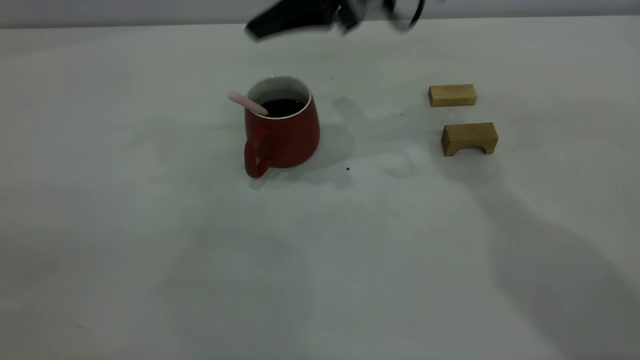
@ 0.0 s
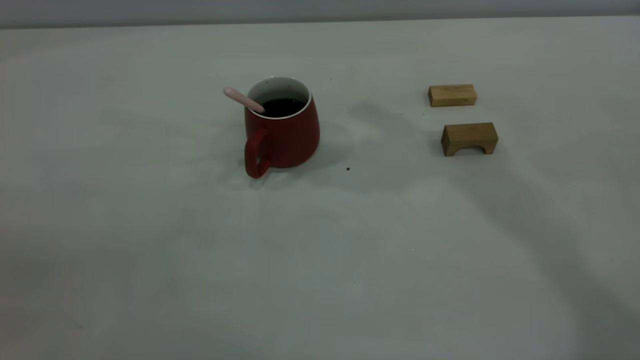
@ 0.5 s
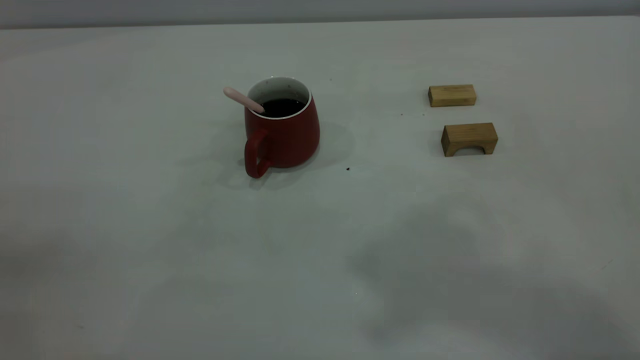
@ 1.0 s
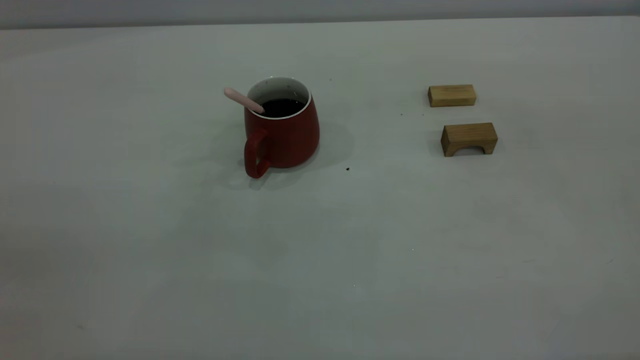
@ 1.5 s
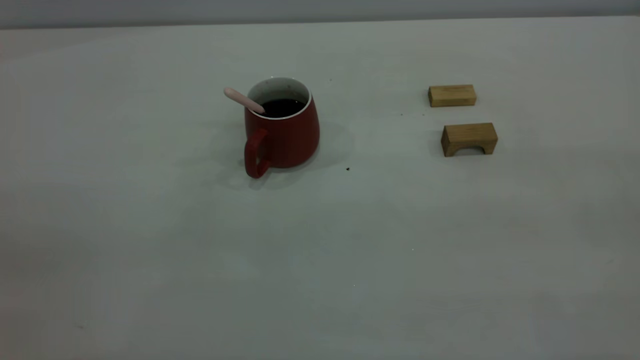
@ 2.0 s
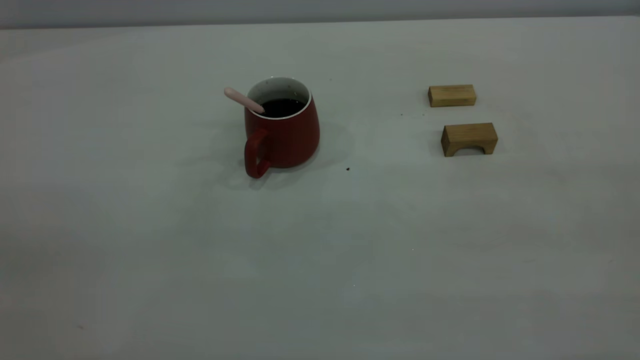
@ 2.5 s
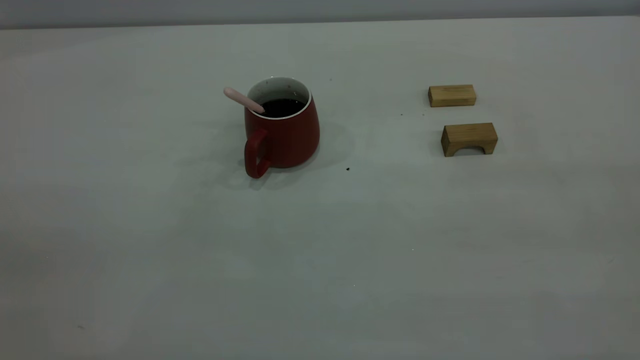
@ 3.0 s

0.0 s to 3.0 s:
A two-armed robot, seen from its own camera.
0.0 to 1.5 s: The right gripper travels backward, upward and to the right by about 50 cm, and closes.
